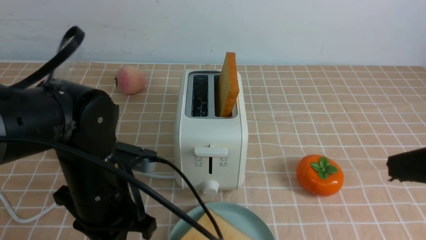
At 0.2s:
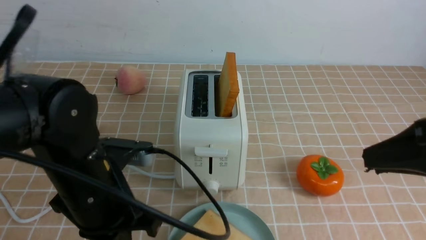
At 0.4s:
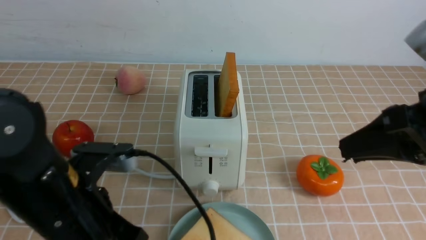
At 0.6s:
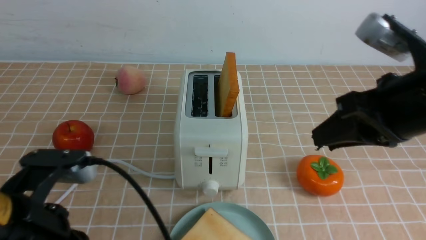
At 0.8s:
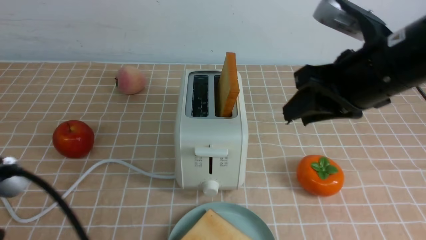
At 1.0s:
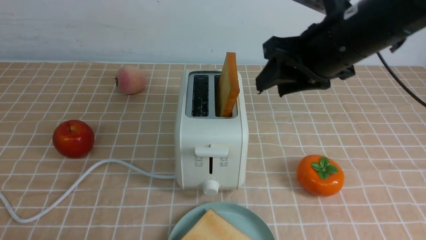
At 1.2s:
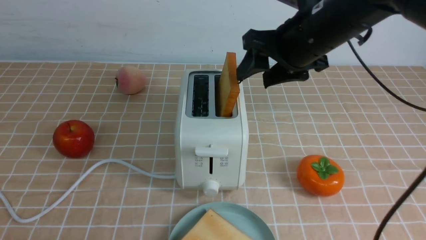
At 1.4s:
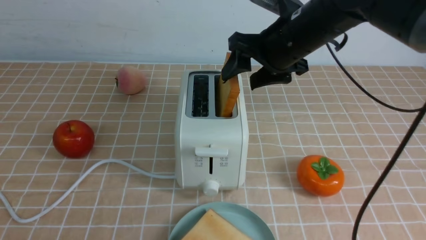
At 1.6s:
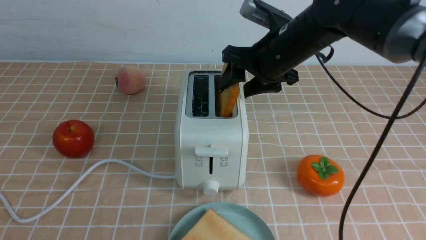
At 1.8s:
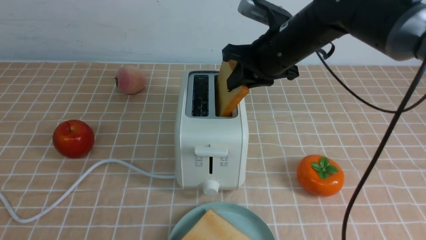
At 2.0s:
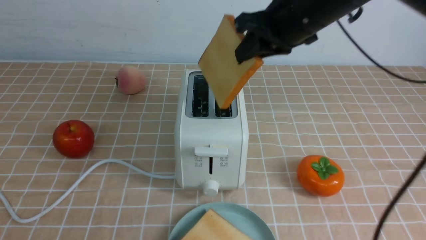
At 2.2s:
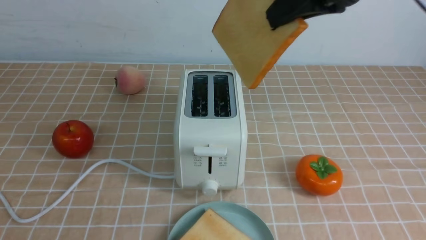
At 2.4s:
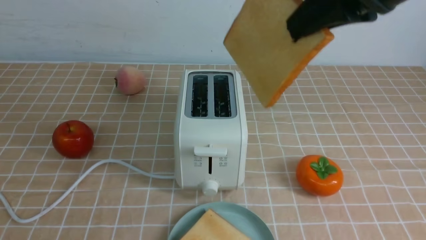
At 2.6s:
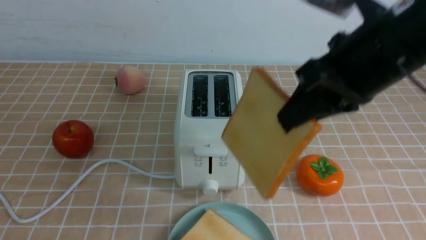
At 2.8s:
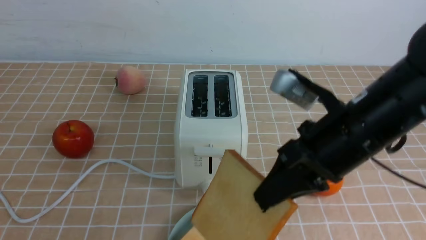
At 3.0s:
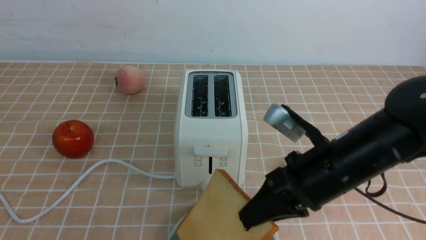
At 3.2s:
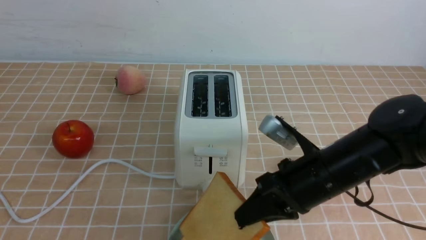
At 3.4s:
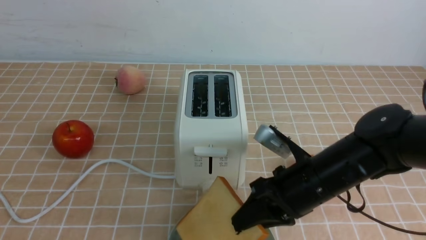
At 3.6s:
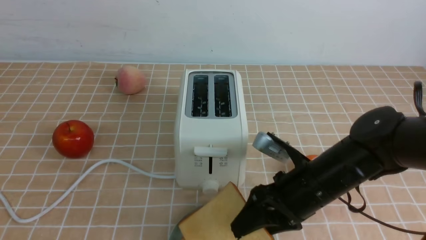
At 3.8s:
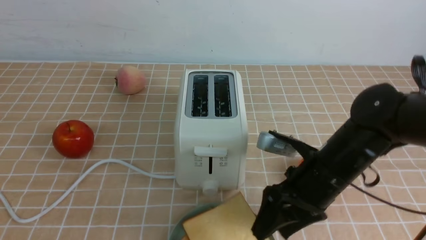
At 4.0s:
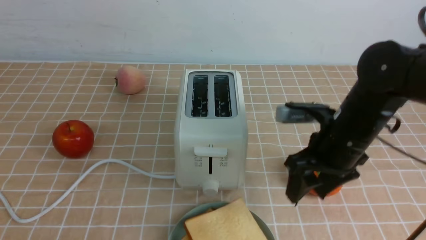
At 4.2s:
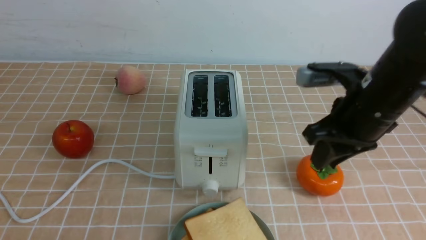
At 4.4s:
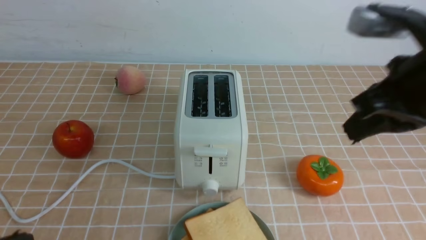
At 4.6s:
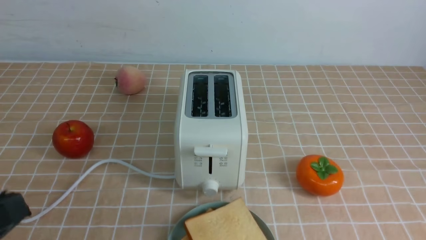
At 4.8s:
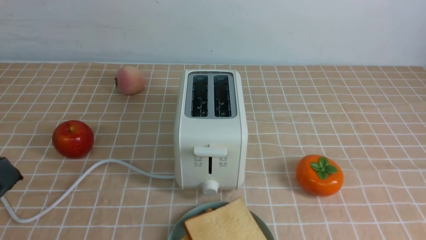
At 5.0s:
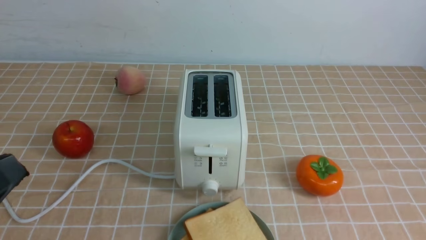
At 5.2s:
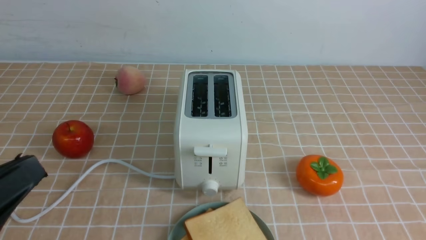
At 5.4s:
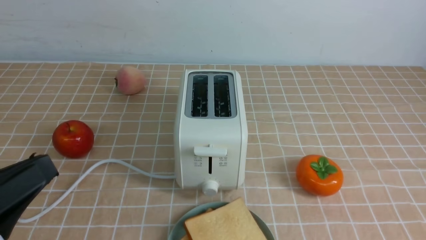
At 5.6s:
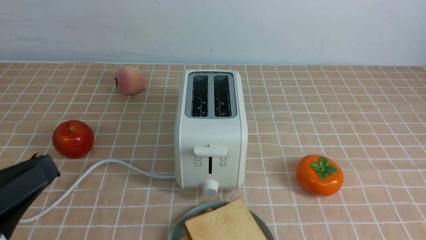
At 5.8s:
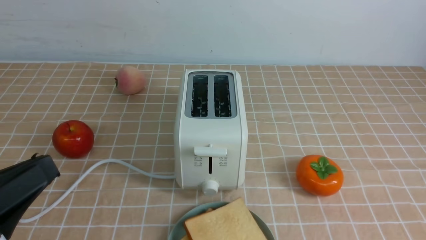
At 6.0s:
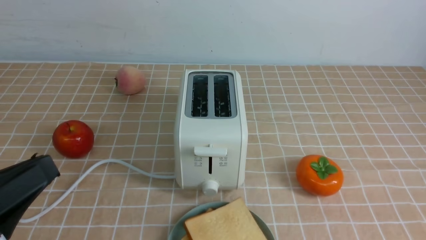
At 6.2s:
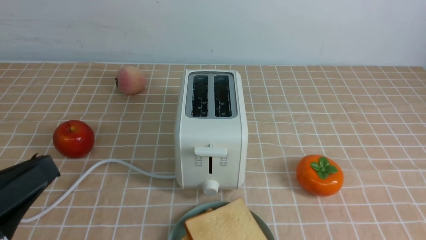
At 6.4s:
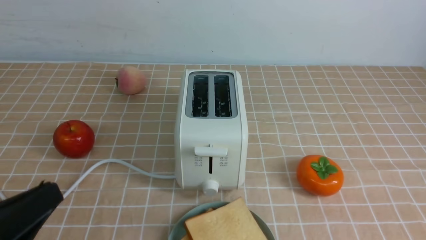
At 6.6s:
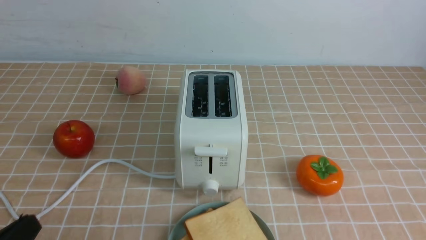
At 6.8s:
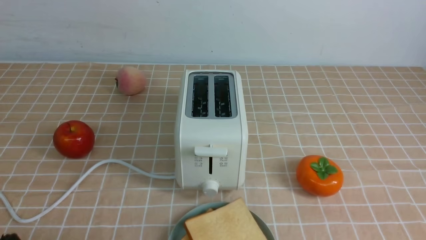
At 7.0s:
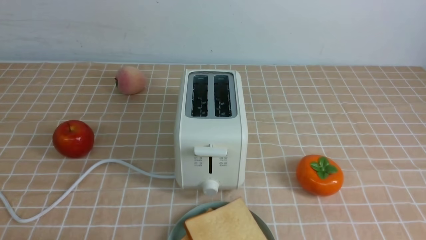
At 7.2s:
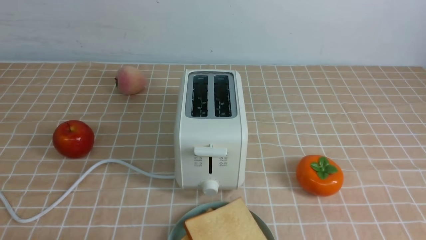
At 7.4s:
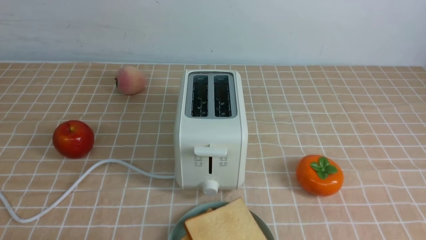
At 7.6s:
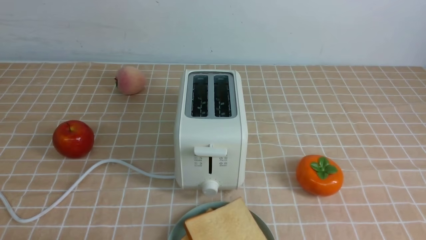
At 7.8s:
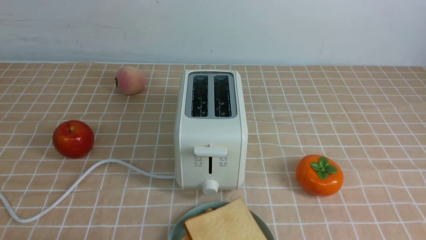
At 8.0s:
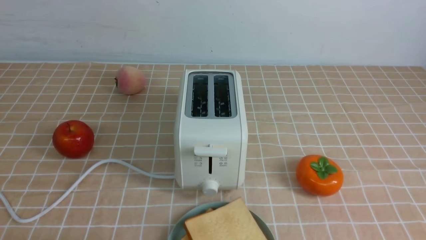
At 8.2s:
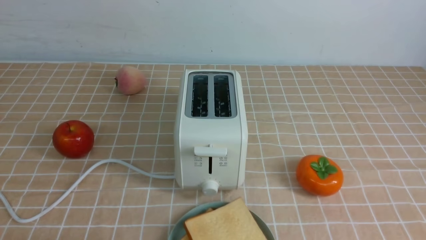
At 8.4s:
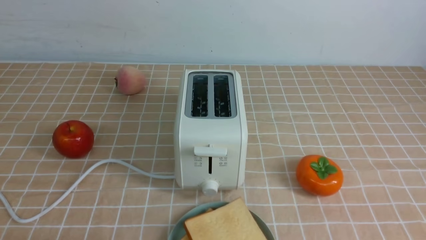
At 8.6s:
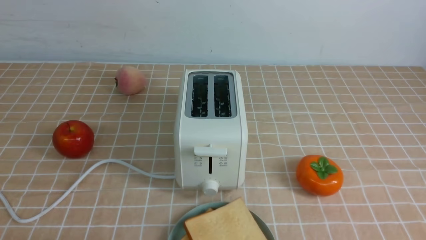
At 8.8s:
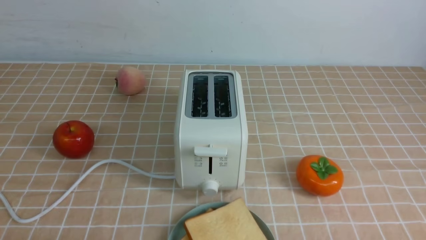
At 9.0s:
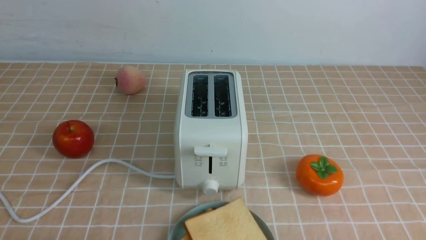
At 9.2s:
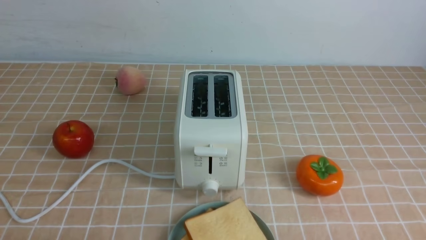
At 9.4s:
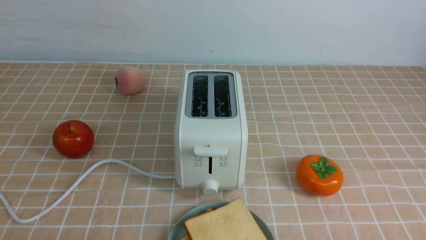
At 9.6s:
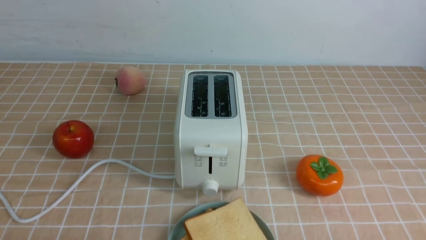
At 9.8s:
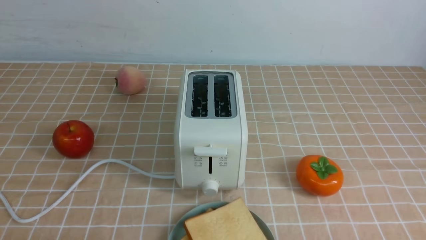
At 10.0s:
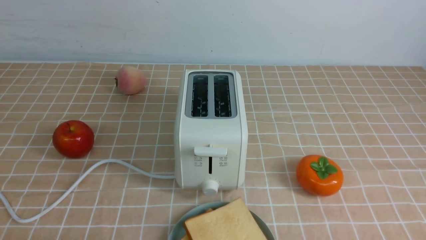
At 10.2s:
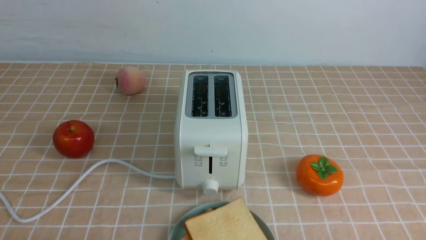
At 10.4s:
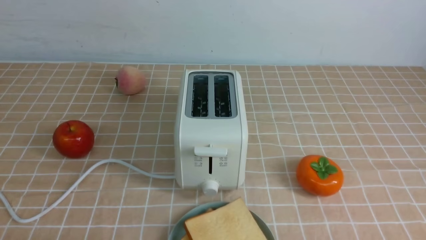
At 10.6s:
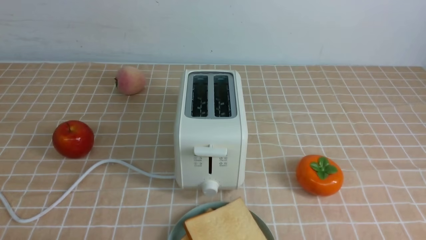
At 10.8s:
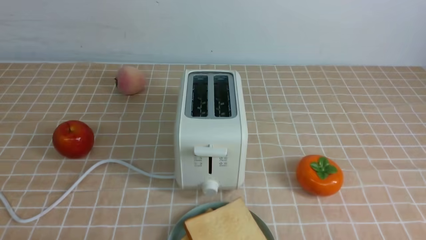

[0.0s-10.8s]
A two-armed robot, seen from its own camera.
Task of the whole recording: take toasted bread from bread machine on light coffee tablecloth place on plate.
Step, 0.2s to 2.0s: use the right arm to take out a slice of bread.
Step, 2.2s to 3.8s: use the right arm to put a slice of bread into the plate.
0.0s to 1.6s: The right gripper moves forward and to the left, approximately 30 cm, and opens, while the left gripper shifts some 25 cm backward and to the left, and closes its fingers.
1.6s to 3.0s: The right gripper is displaced backward by some 15 cm, travels upward and back again, some 15 cm each way, and closes its fingers.
3.0s to 4.6s: The right gripper travels upward, backward and to the right by roughly 25 cm, and opens, then closes again.
6.2s to 7.8s: The left gripper shifts some 15 cm downward.
9.2s to 10.8s: The two grippers keep their place.

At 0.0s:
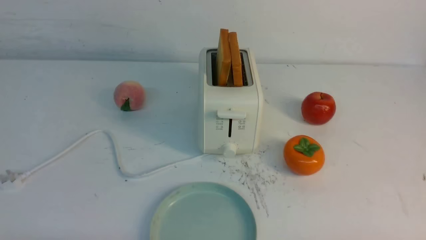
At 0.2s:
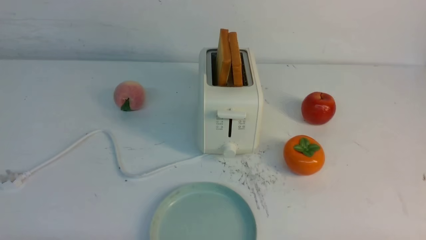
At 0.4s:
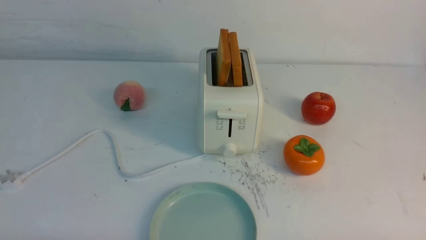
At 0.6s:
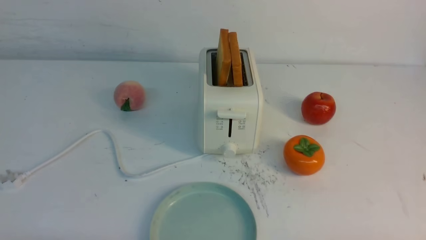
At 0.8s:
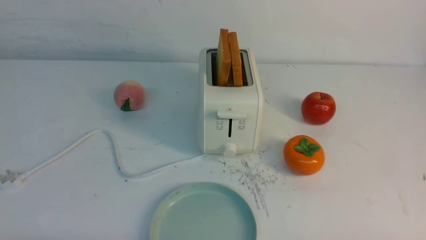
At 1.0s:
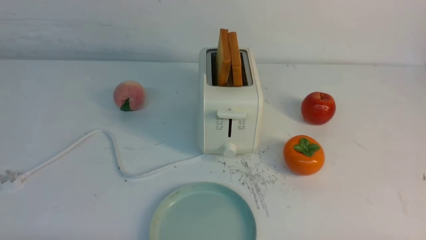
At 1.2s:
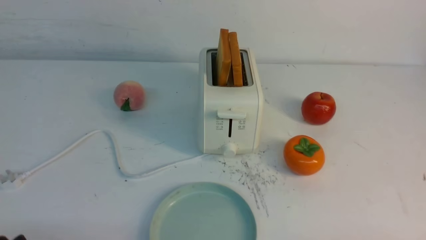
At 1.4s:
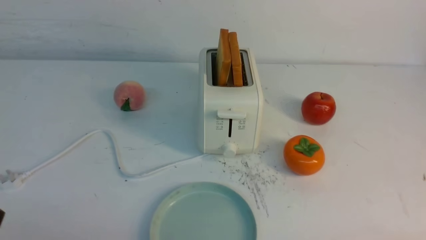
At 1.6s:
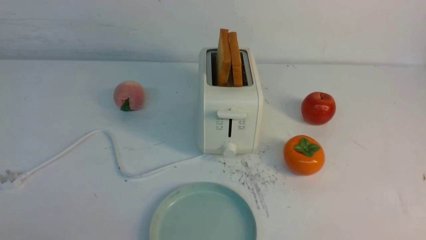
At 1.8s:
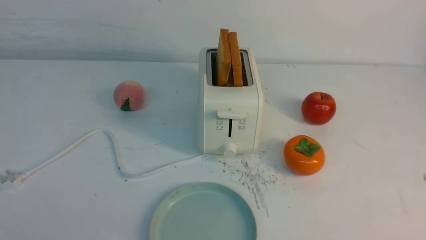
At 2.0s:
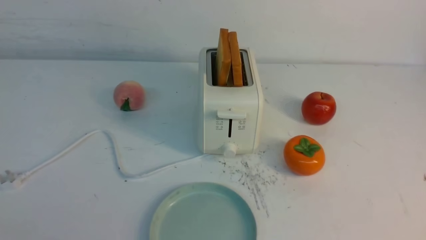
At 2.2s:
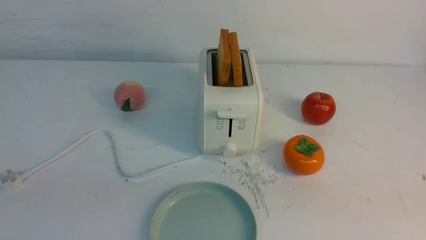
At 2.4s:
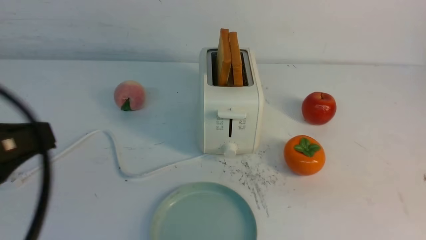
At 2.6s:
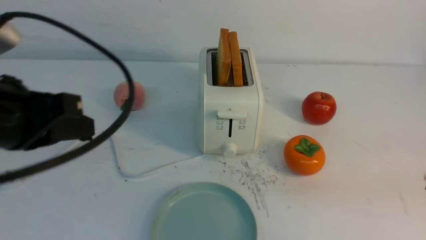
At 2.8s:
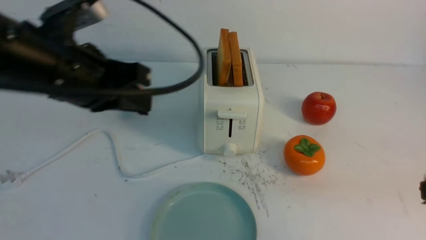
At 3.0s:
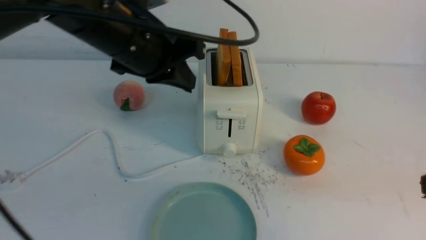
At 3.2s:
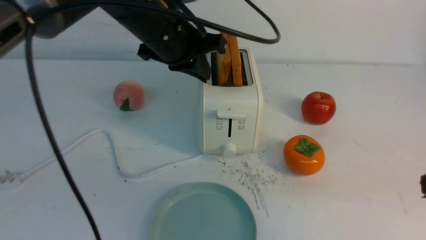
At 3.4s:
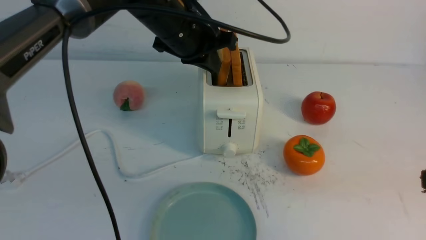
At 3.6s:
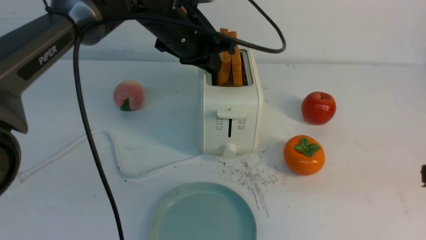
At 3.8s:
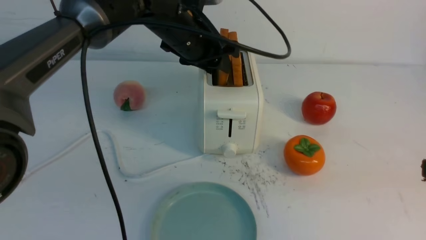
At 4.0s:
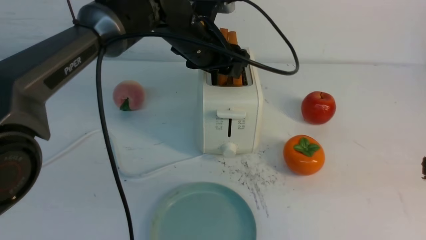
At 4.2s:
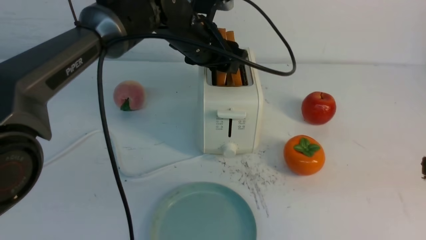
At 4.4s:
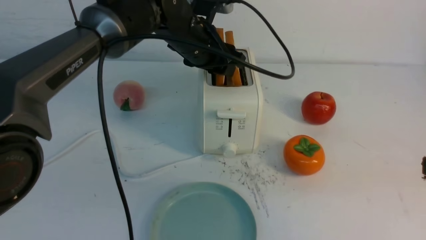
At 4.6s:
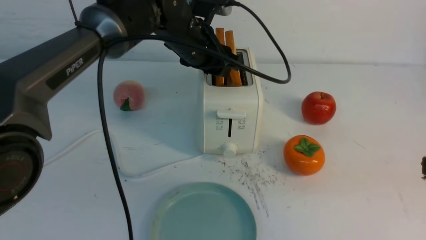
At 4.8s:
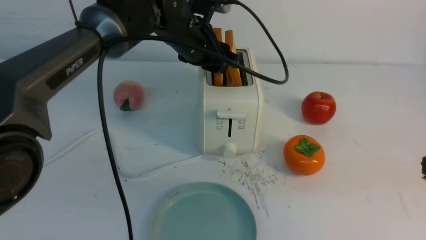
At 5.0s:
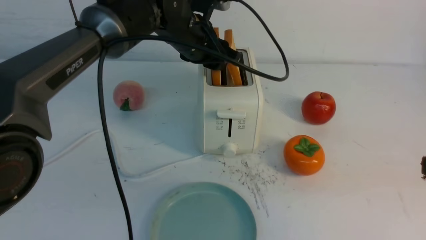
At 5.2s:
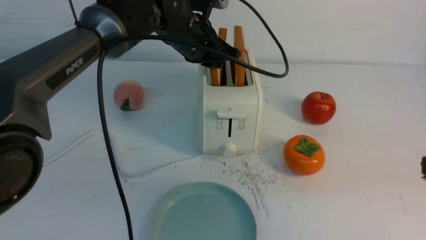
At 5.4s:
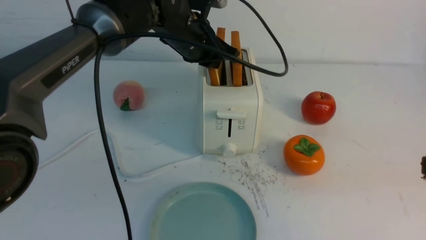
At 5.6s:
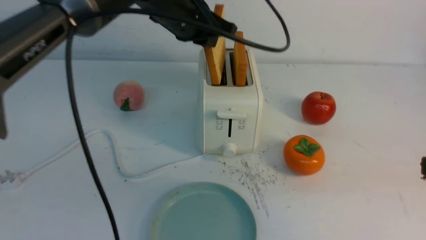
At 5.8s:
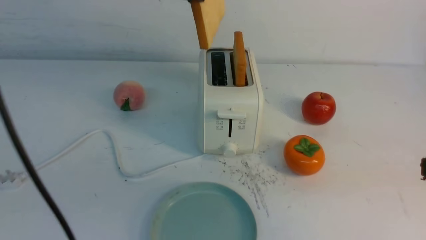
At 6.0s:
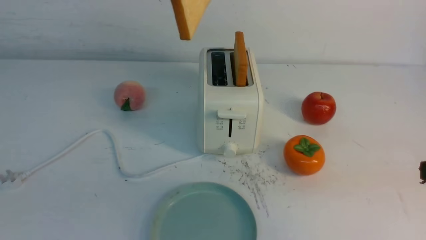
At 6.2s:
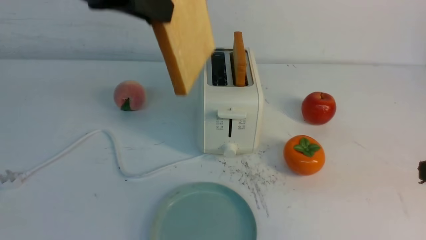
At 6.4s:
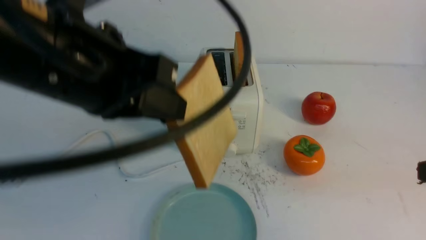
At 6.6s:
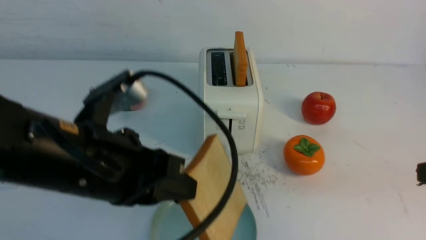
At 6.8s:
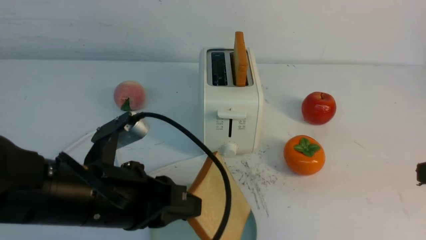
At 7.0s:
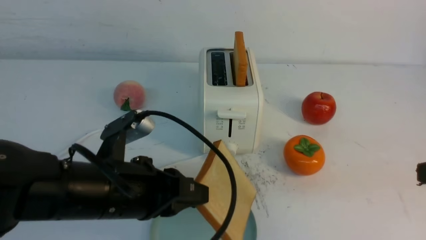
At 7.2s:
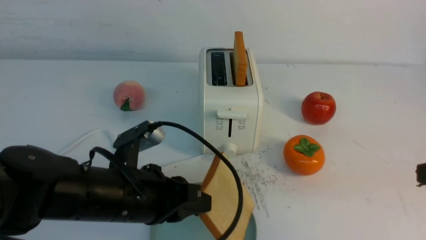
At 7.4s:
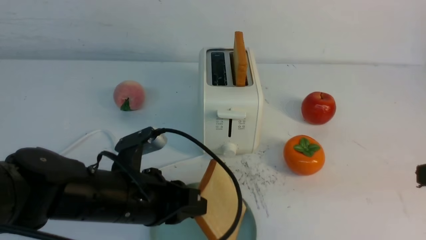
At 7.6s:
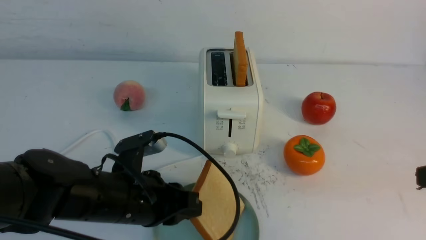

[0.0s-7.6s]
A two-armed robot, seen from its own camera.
Task of the whole recording: take toasted bread from bread machine on white table place on plate.
Step, 0.0s to 5.6s: use the left arm to take out a slice of bread.
1.6s to 3.0s: The right gripper shifts approximately 15 cm upward and forward, and closes its fingers. Meanwhile the left gripper goes about 35 cm forward, upward and to the right, and closes up.
3.0s to 4.6s: The left gripper goes some 15 cm forward and to the right, and opens.
4.6s to 6.0s: The left gripper moves upward and backward, about 20 cm, and closes up.
6.0s to 7.6s: The left gripper shifts roughly 25 cm downward.
